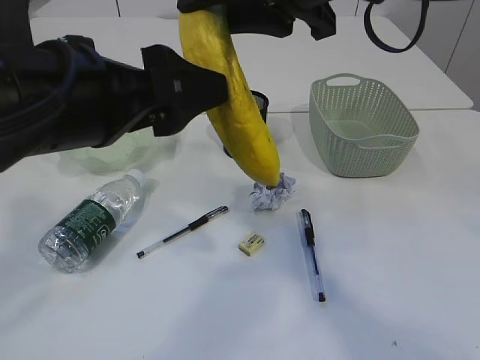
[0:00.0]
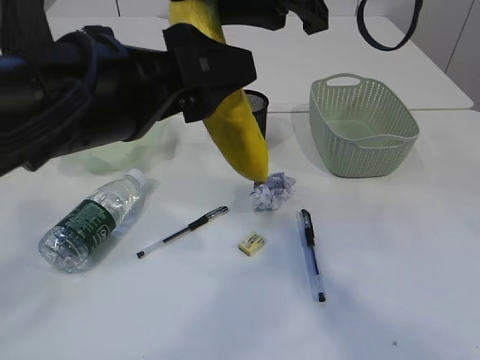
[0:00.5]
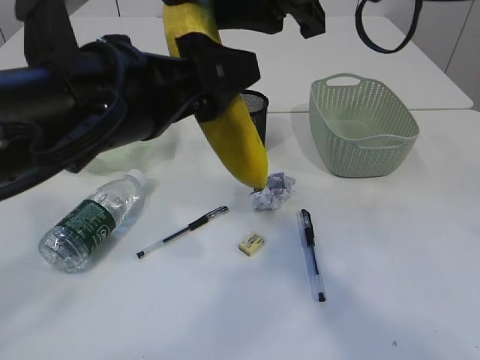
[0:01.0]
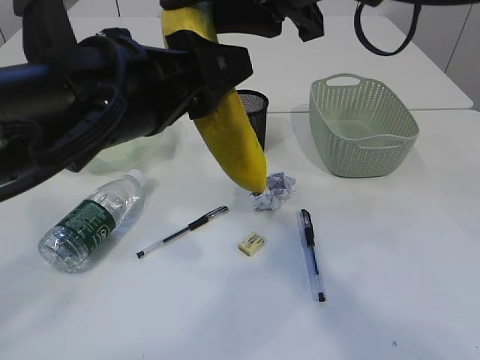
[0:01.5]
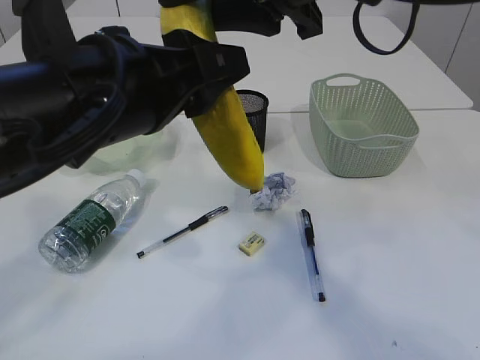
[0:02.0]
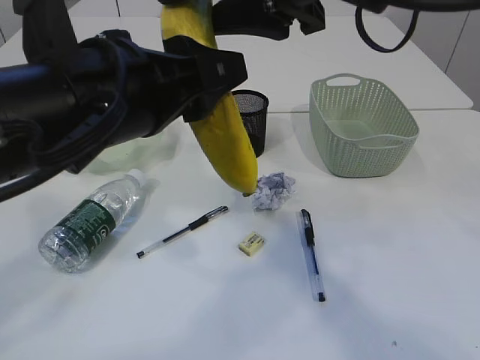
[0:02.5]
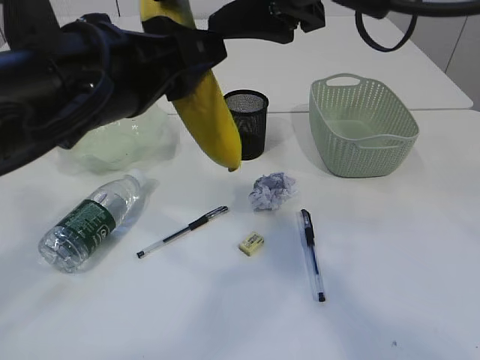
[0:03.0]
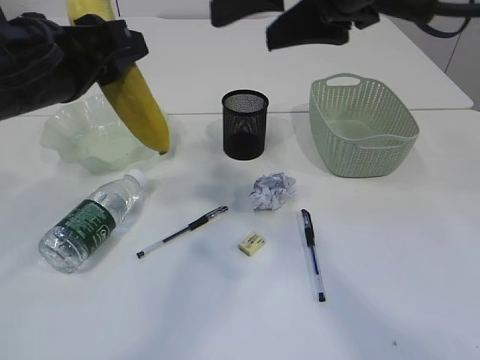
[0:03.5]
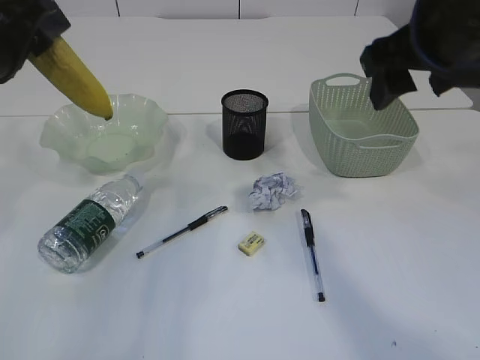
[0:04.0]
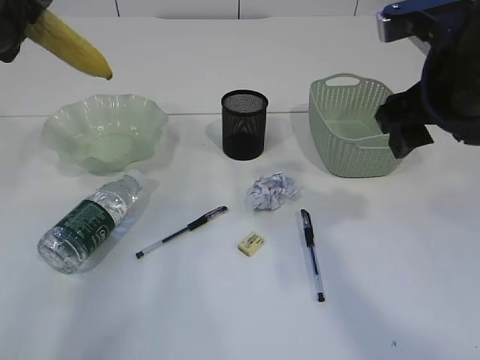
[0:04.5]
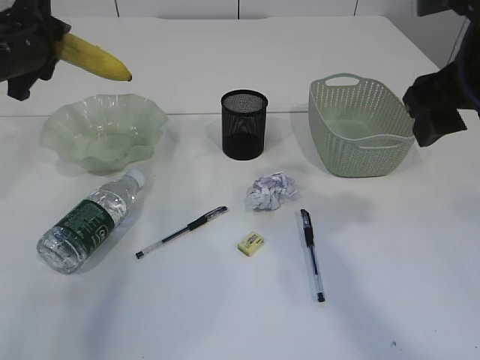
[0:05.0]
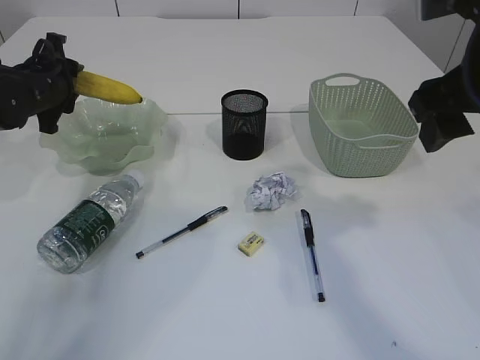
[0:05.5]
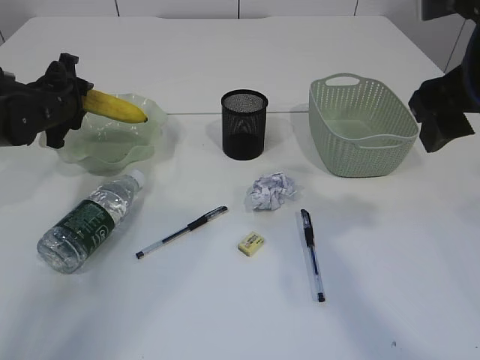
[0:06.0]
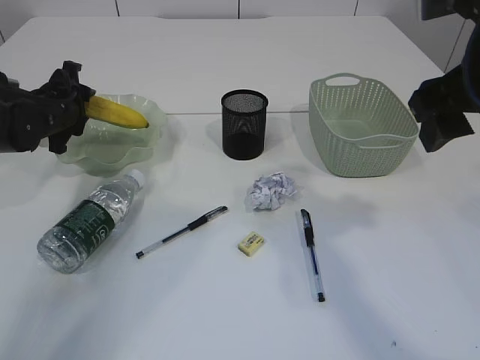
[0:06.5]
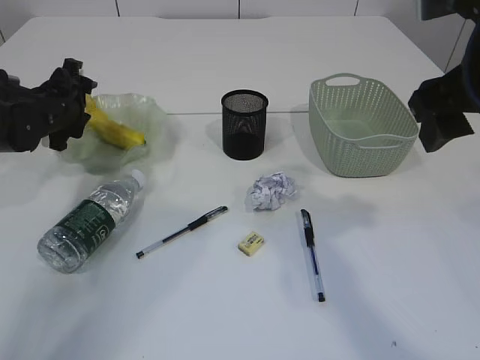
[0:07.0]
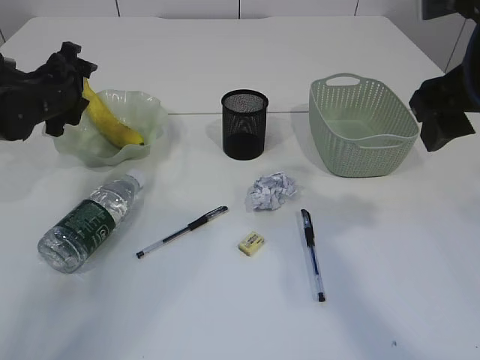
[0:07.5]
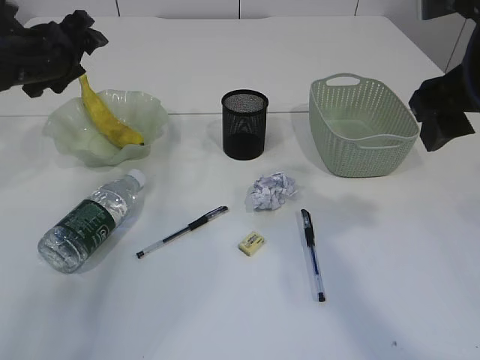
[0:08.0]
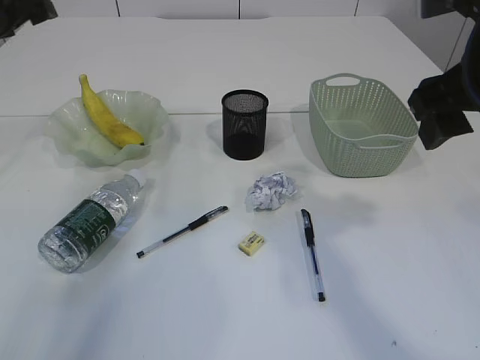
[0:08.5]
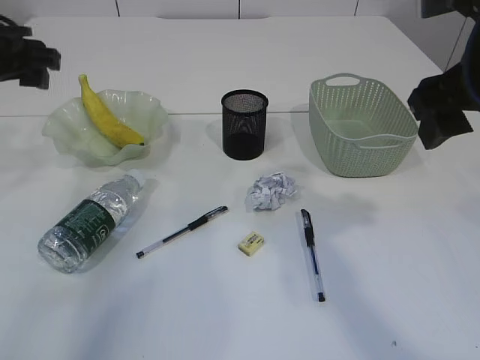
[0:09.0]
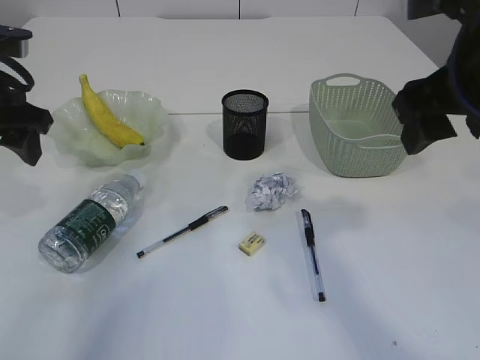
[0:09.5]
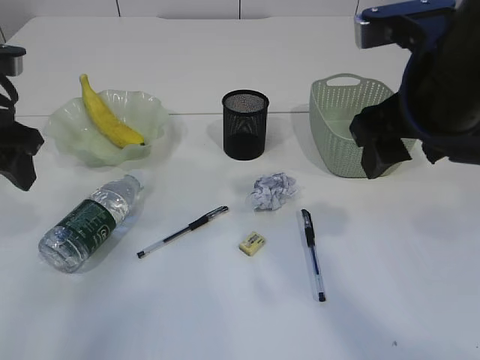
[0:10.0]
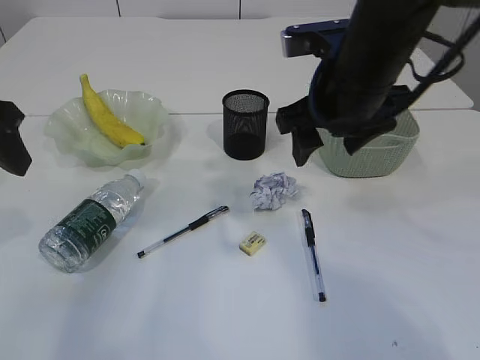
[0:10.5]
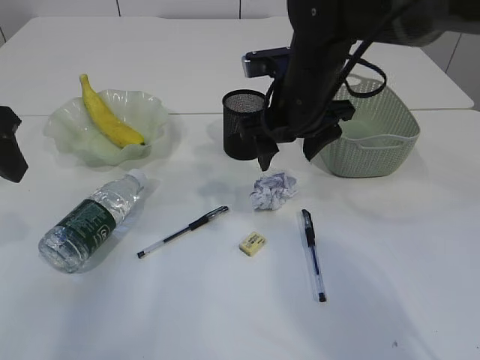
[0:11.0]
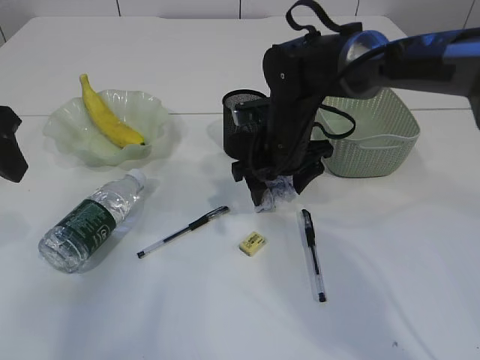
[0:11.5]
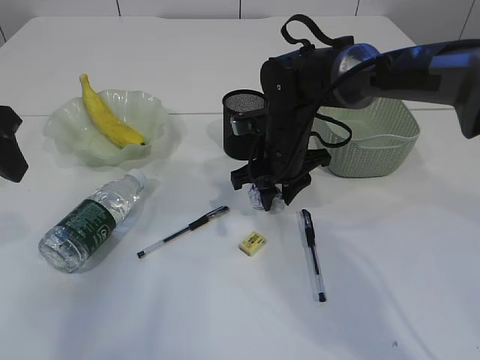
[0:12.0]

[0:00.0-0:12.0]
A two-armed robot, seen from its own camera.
Step, 0:00.0 to 0:02.5: Hand over the banana.
Step, 0:03.0 to 0:08.0: Place the banana in the plate.
0:00.0 to 0:02.0: The left gripper closes.
0:02.0 to 0:04.0: The left gripper shifts about 15 cm to the left and forward. The right gripper shifts roughly 10 cm to the right, and opens up.
0:04.0 to 0:06.0: The left gripper is displaced forward and downward by about 25 cm.
0:06.0 to 0:08.0: The left gripper travels upward by some 10 cm, and opens.
0:08.0 to 0:10.0: The left gripper is displaced backward by roughly 15 cm.
0:10.0 to 0:12.0: The left gripper moves some 5 cm. The right gripper travels downward, forward and to the left by about 25 cm, and closes.

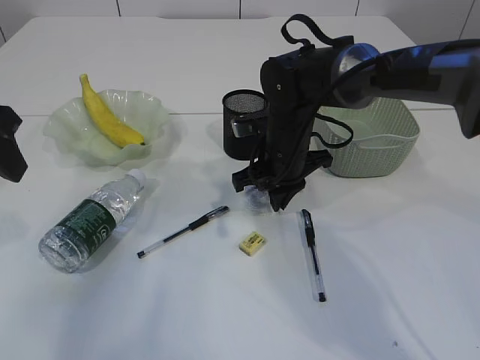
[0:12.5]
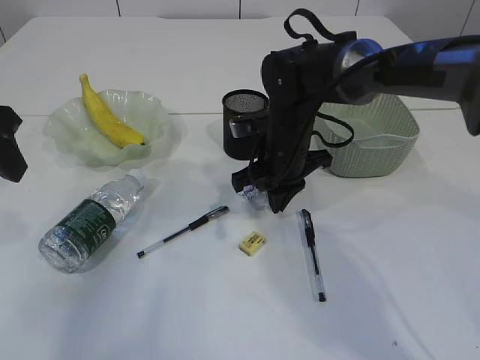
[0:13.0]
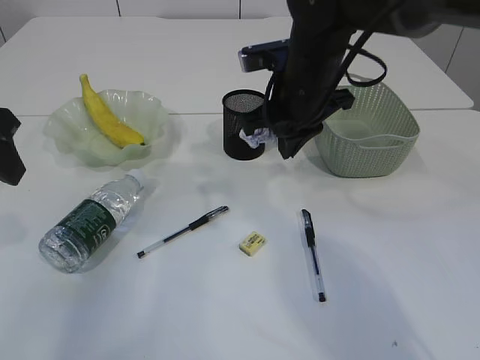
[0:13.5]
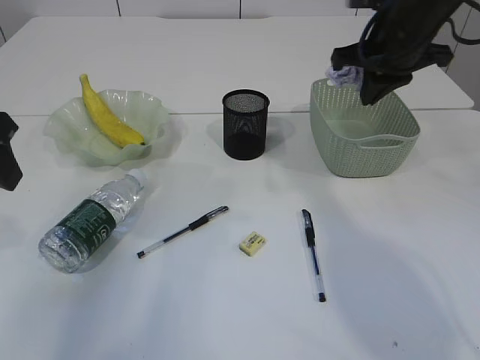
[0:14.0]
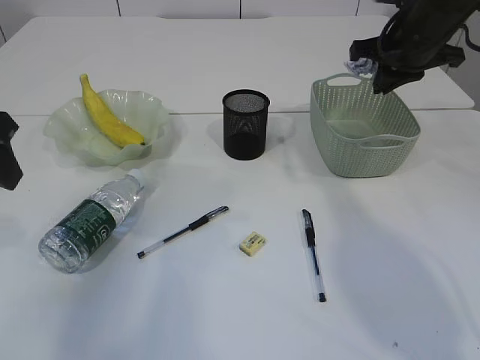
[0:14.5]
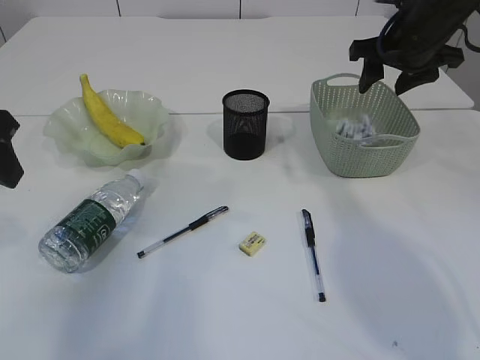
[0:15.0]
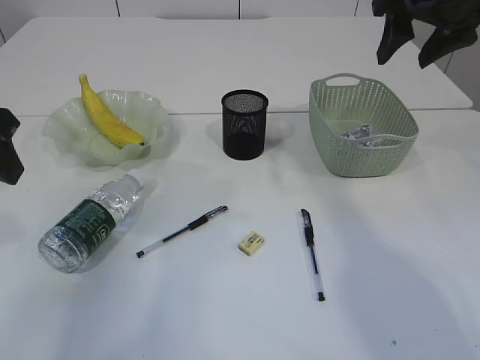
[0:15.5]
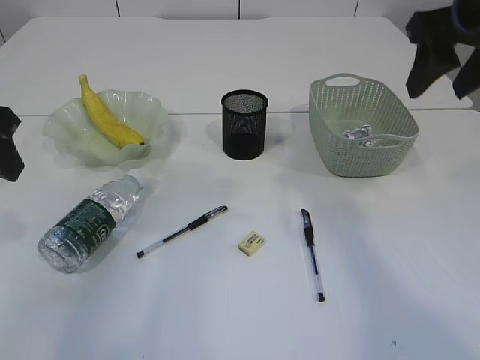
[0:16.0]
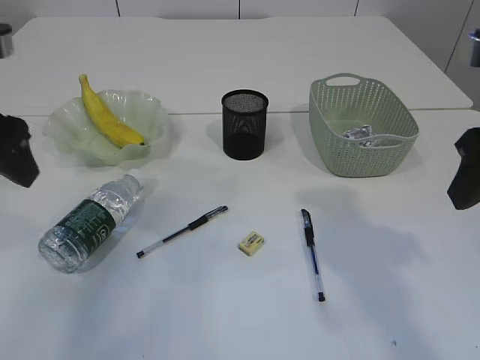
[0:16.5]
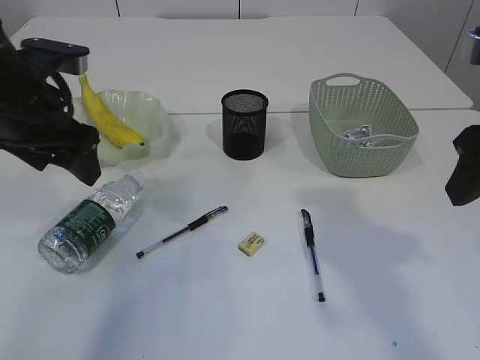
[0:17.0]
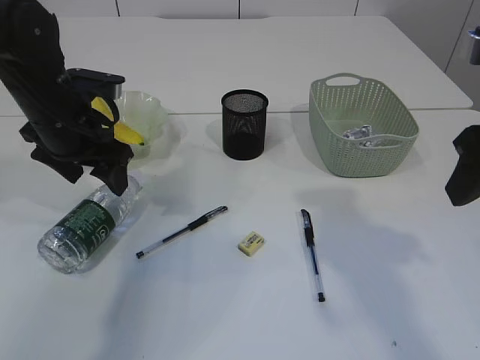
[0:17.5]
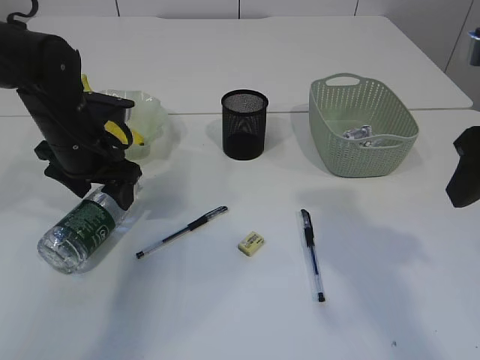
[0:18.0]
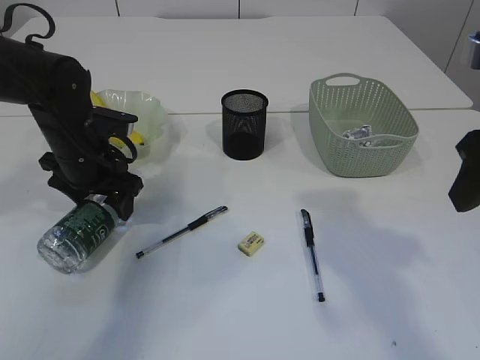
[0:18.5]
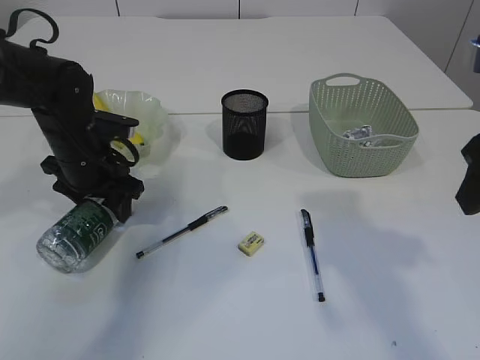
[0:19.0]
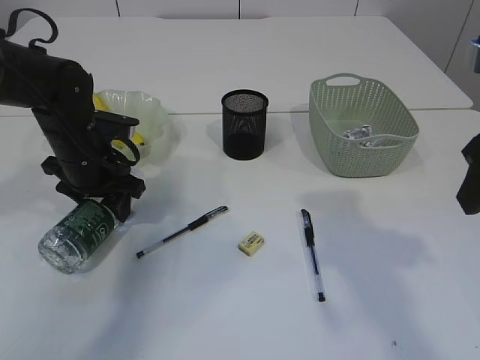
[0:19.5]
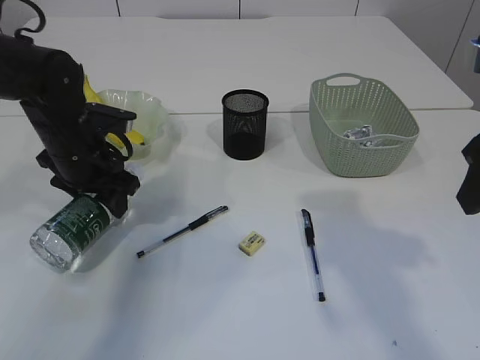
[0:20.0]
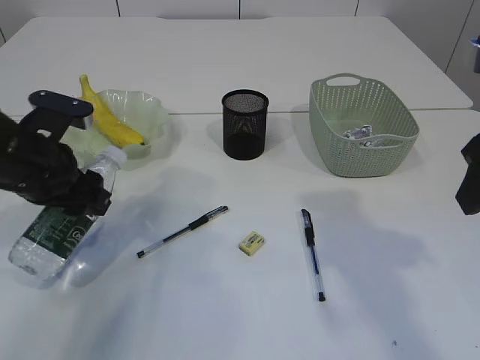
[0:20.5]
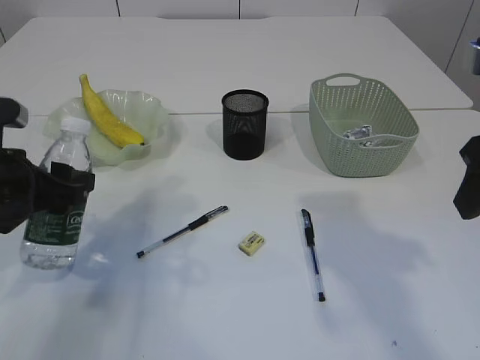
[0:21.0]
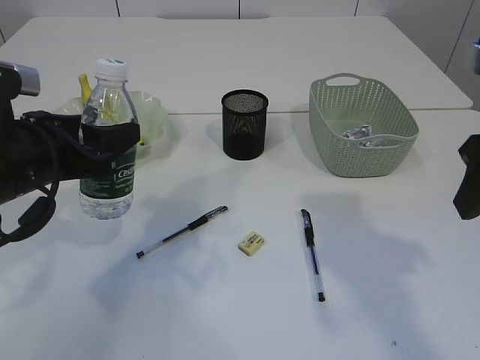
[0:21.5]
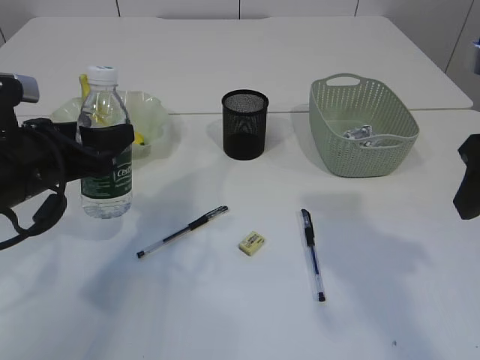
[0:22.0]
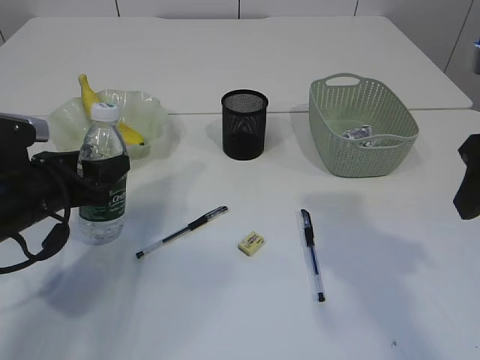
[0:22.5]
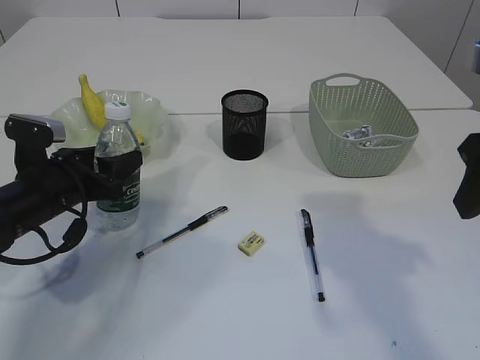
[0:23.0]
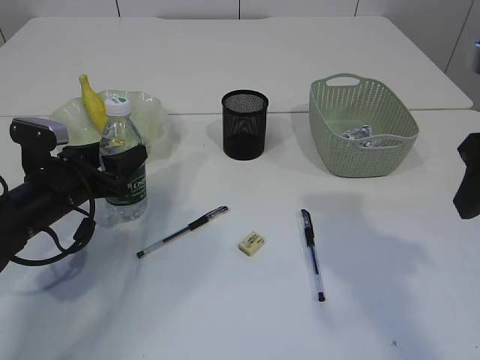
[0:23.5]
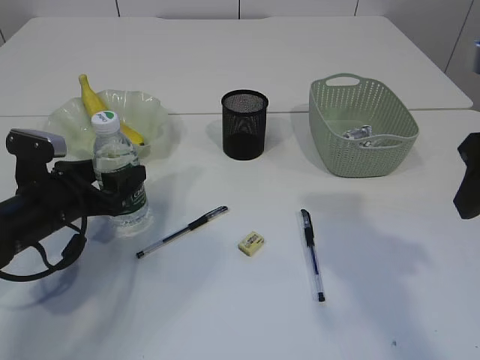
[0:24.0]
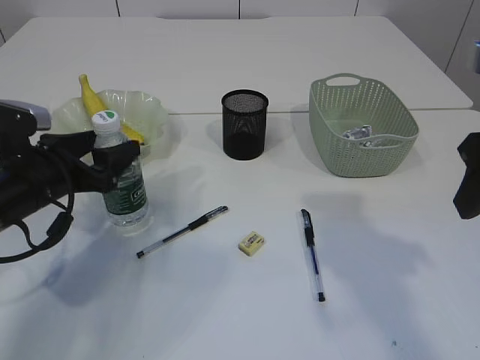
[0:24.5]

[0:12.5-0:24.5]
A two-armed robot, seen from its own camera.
Step, 0:13.5 to 0:15.0: Place the waste paper in the basket.
Step, 0:15.5 to 0:20.5: Pick up the bottle with the left arm.
0:12.5 to 0:14.5: The right gripper moves to the right and upward, some 20 cm.
0:14.5 to 0:16.5: The right gripper heads backward, covering approximately 20 cm, and opens up.
0:16.5 to 0:18.5: The left gripper goes approximately 20 cm downward and forward.
0:18.5 to 0:20.5: The left gripper travels backward by roughly 10 cm.
0:20.5 to 0:22.5: The left gripper is displaced downward by roughly 5 cm.
0:22.5 to 0:24.5: There are only small adjustments of the grippers.

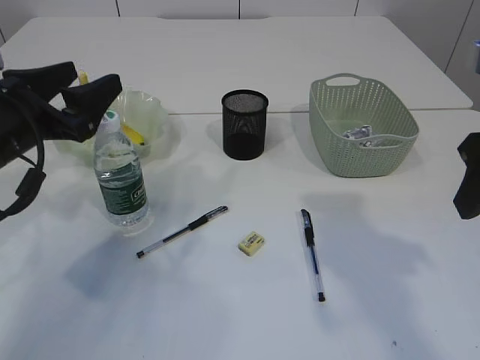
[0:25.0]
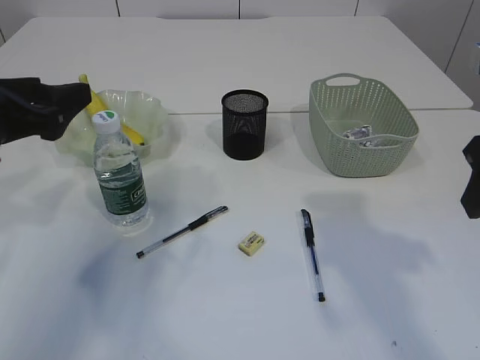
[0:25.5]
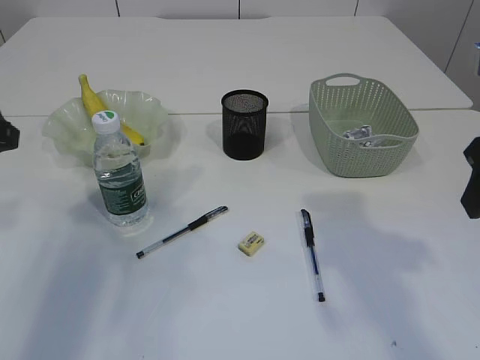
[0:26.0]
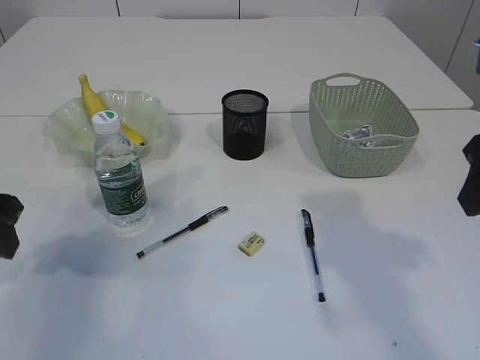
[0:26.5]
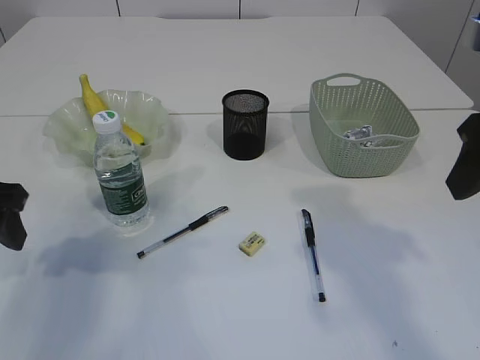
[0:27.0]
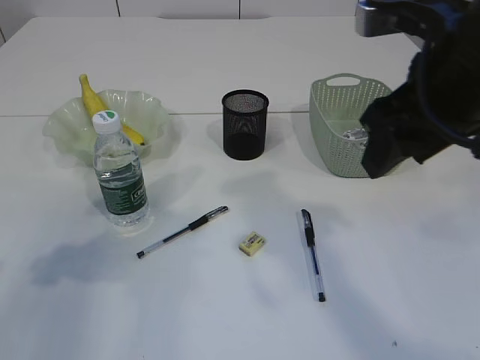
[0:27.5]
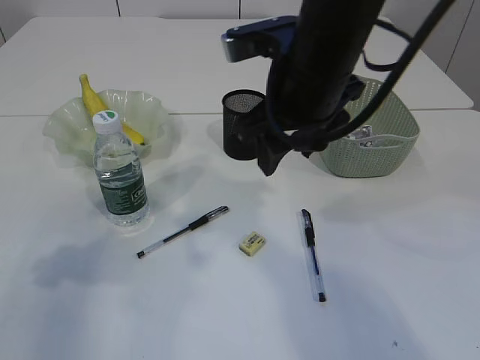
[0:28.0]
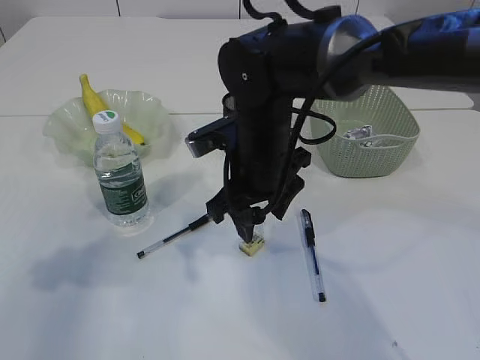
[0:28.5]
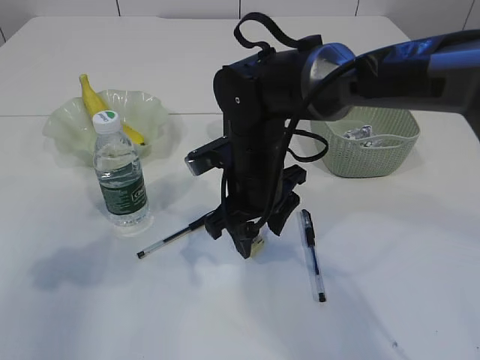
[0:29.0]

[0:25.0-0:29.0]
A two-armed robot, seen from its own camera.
0:25.0 to 0:27.0: The left gripper moves roughly 5 cm.
0:27.0 to 0:29.0: The left gripper ends up some 5 cm from where it was. Meanwhile the right gripper shifts some 30 cm to the left, downward and forward.
